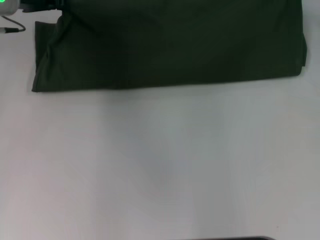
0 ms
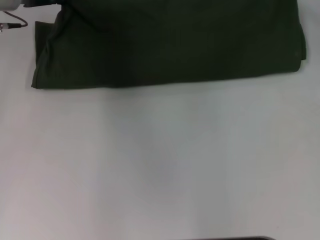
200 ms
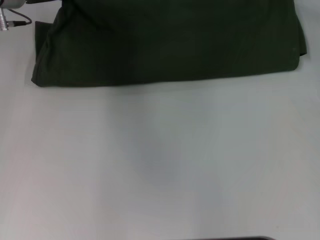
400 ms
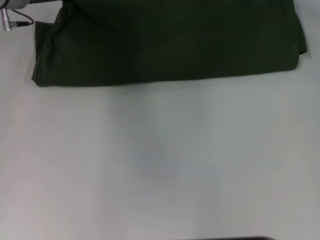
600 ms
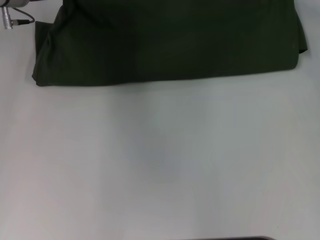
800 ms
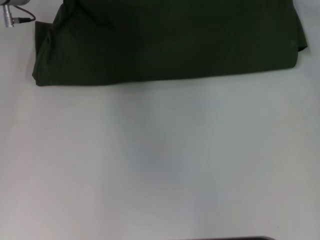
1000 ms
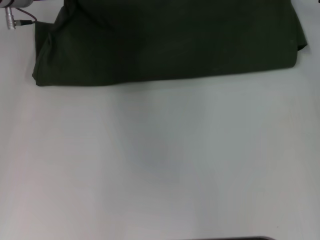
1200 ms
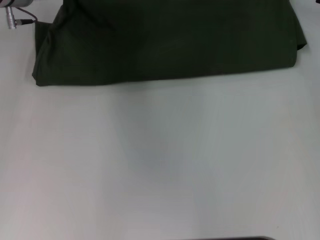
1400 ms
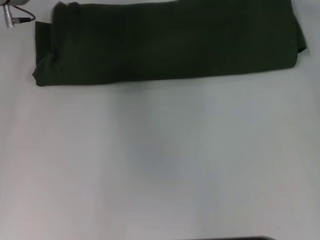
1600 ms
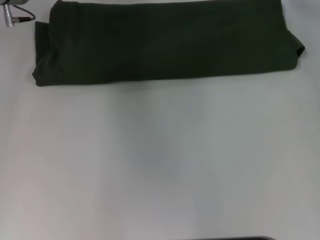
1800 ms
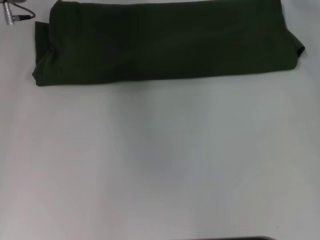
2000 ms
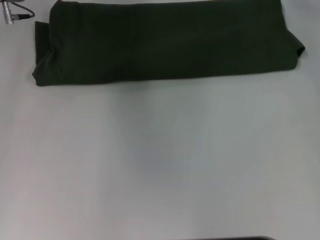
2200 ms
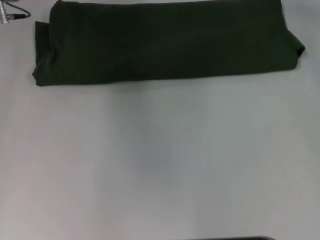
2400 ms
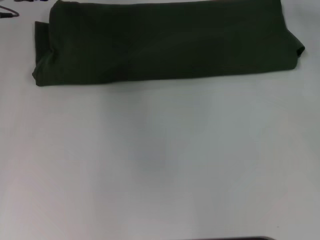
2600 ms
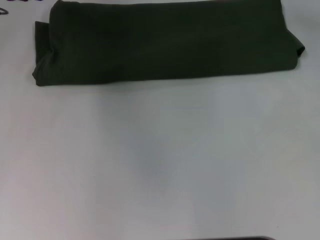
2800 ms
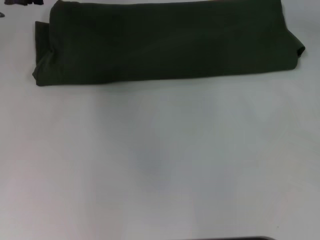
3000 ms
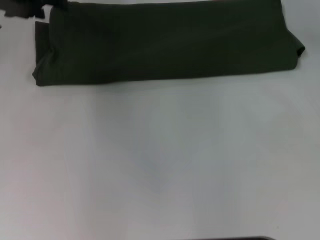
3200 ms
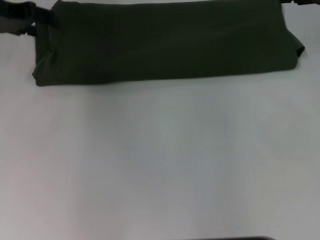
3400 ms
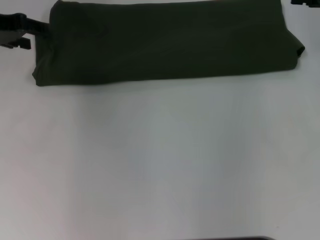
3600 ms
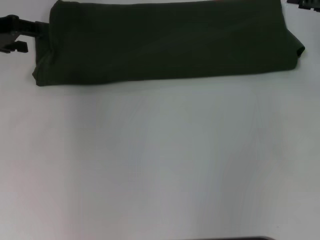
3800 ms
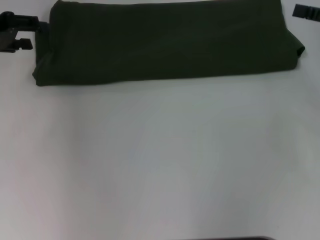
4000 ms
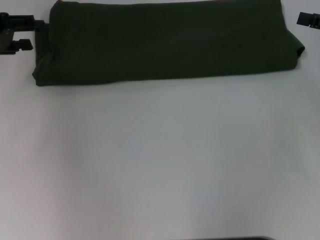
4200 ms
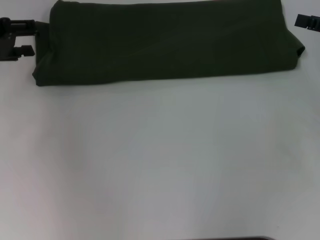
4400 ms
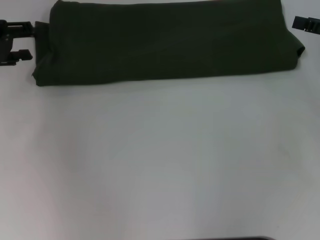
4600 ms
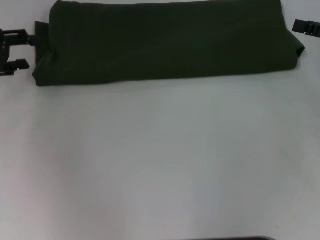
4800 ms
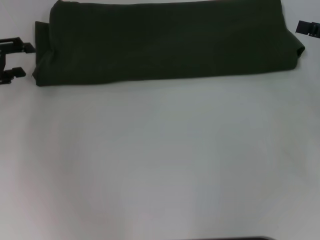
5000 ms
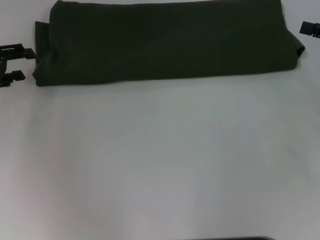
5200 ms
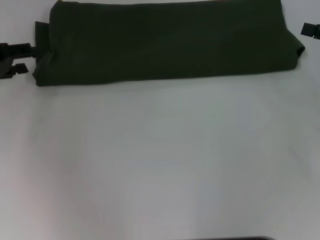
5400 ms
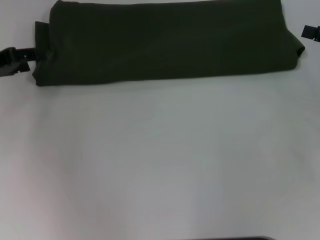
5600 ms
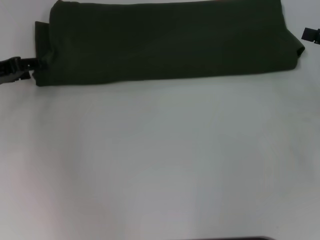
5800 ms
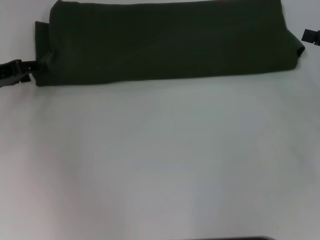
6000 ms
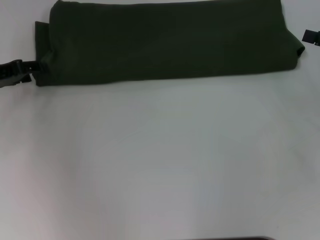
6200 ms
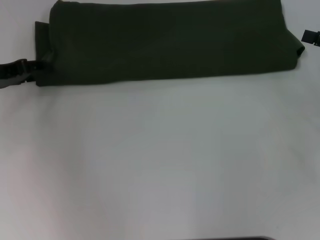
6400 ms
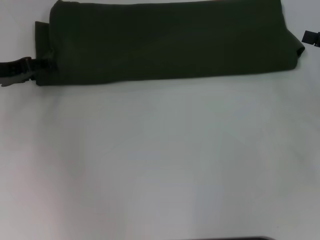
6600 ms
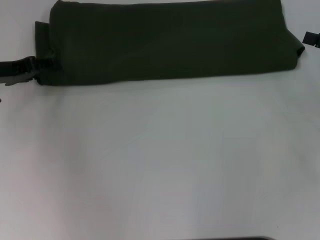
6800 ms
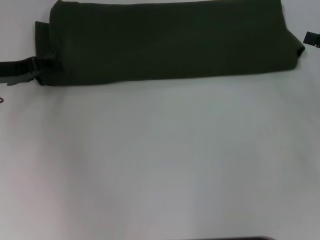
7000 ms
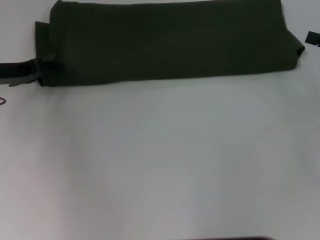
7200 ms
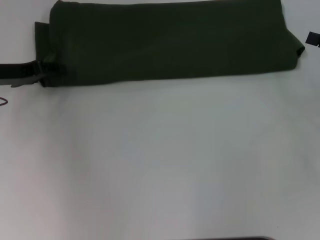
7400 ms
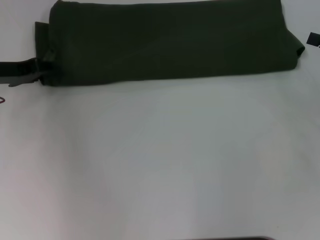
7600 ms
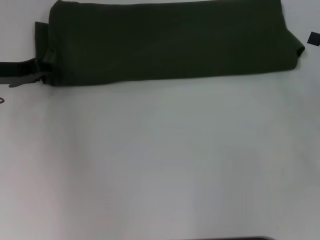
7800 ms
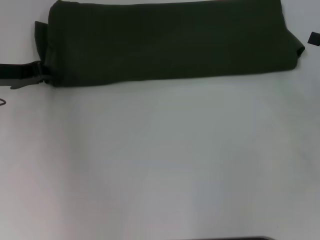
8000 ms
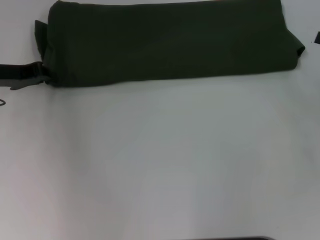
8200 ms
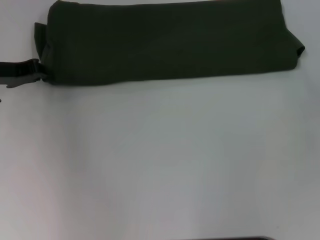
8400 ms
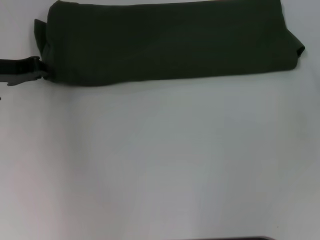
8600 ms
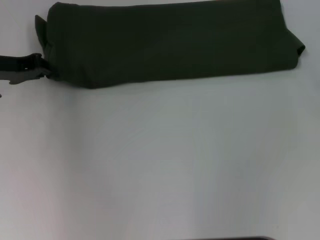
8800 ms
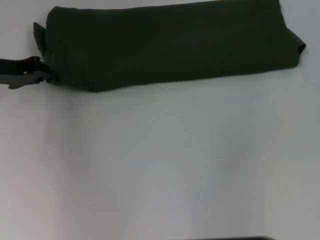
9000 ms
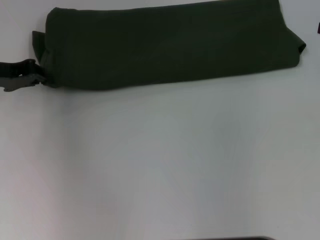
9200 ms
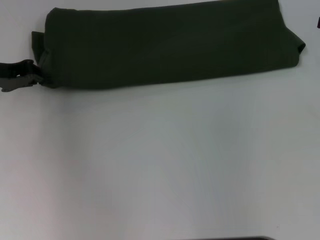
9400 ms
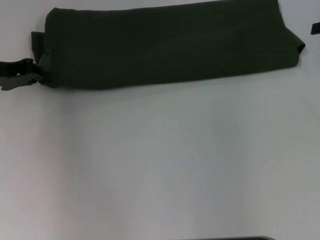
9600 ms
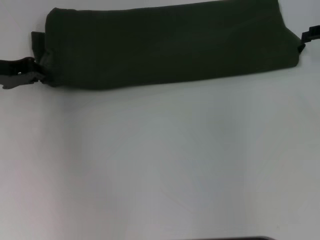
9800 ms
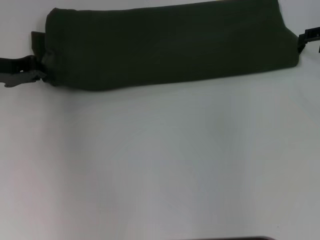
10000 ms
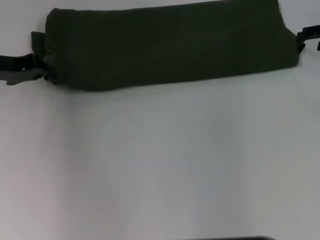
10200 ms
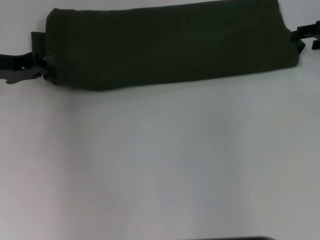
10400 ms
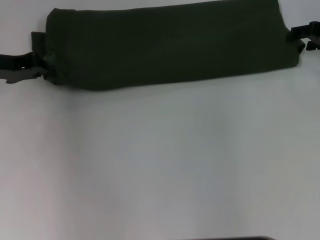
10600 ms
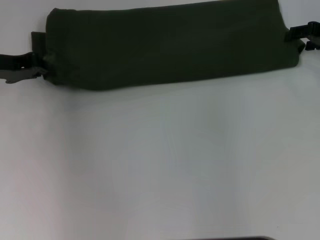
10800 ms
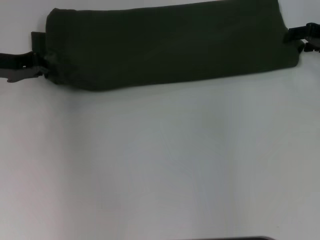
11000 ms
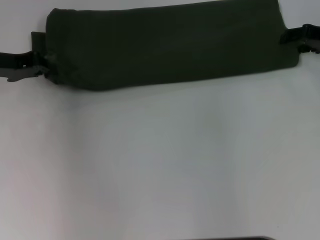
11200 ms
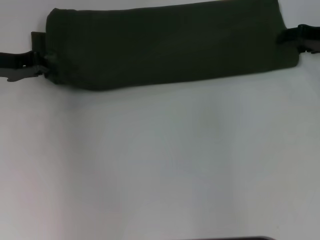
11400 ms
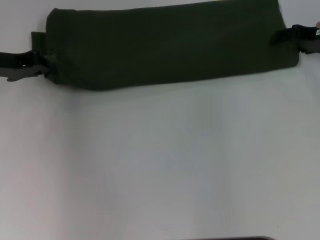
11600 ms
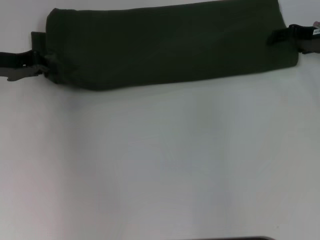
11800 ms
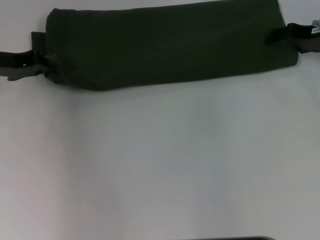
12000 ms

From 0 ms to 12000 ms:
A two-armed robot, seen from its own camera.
From 0 ms to 1600 ms: The right gripper shifts by roughly 5 cm.
From 1600 ms to 3000 ms: The left gripper shifts by roughly 5 cm, and opens, while the right gripper ends up some 5 cm from where it was, and opens.
From 3000 ms to 4400 ms: The left gripper shifts about 10 cm backward and to the left.
From 4400 ms to 6000 ms: The left gripper is displaced downward by some 5 cm.
From 7600 ms to 9000 ms: The right gripper goes approximately 10 cm forward and upward. Meanwhile the left gripper closes.
From 9000 ms to 10400 ms: The right gripper is displaced to the left by approximately 5 cm.
From 10400 ms to 12000 ms: The grippers stay close to where they were, moving slightly.

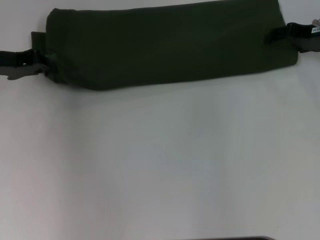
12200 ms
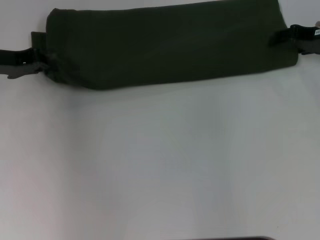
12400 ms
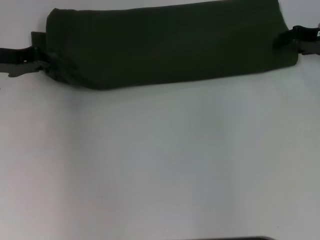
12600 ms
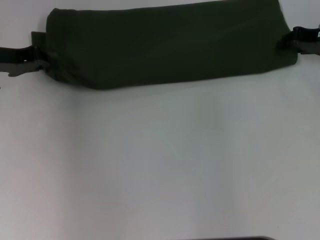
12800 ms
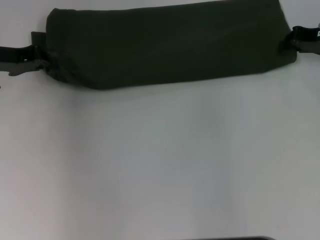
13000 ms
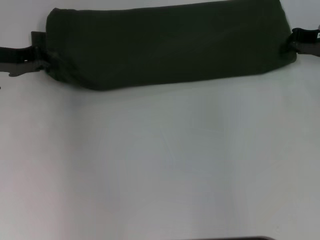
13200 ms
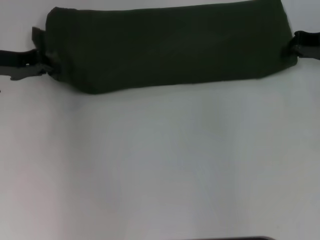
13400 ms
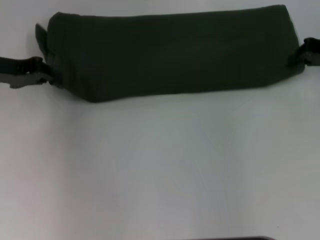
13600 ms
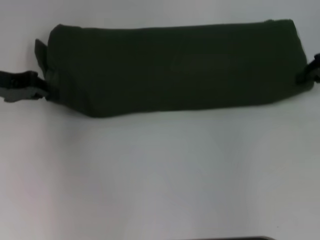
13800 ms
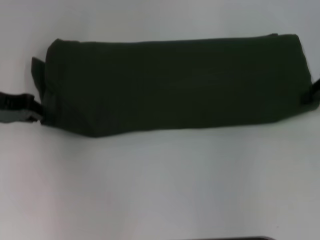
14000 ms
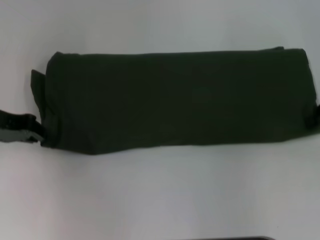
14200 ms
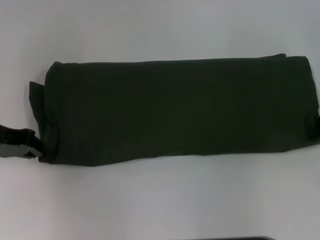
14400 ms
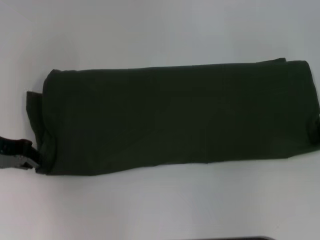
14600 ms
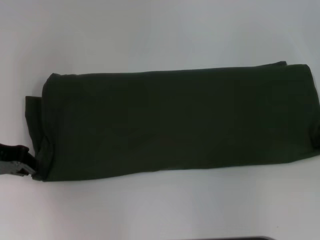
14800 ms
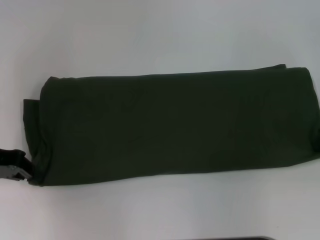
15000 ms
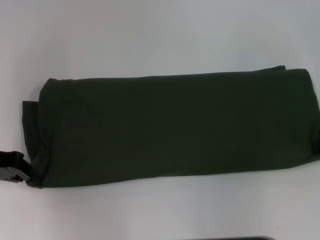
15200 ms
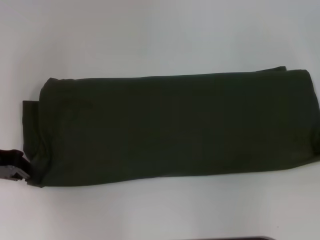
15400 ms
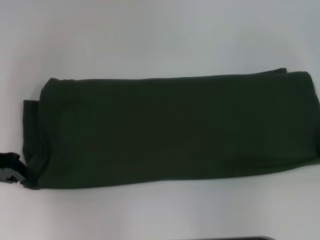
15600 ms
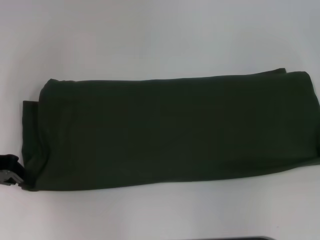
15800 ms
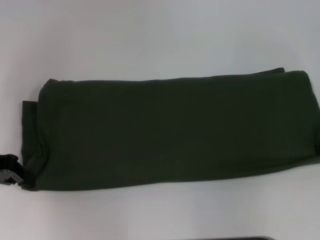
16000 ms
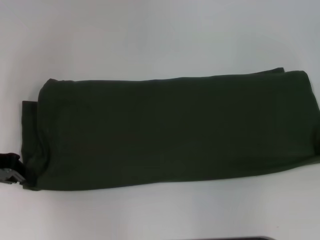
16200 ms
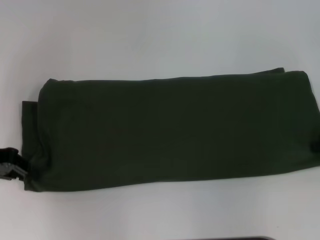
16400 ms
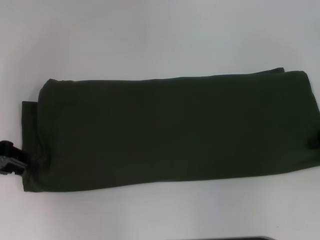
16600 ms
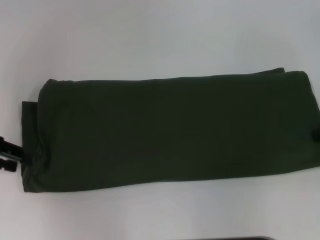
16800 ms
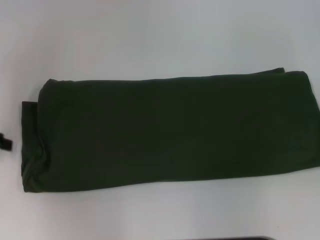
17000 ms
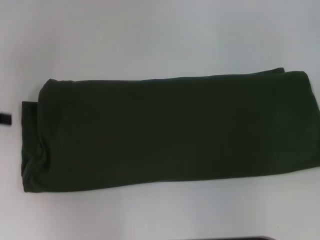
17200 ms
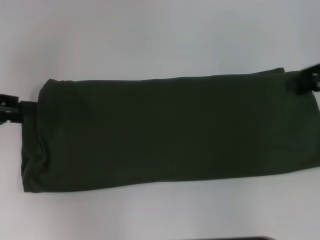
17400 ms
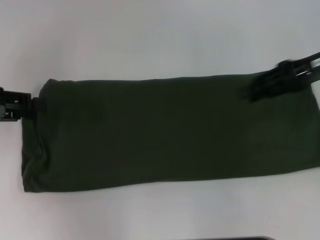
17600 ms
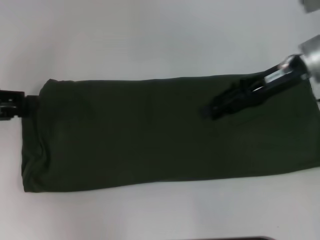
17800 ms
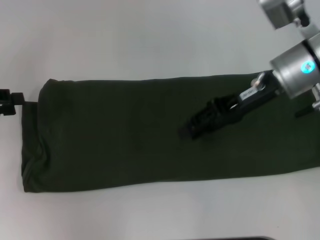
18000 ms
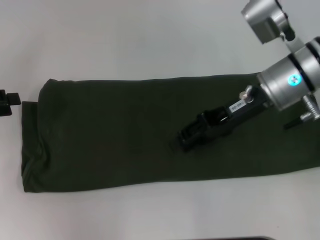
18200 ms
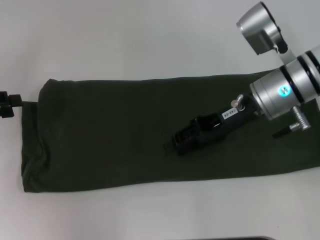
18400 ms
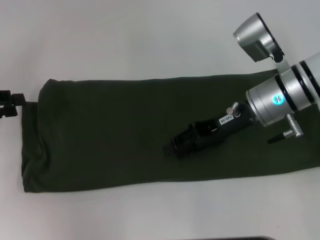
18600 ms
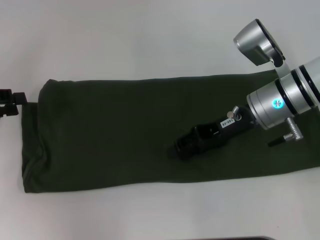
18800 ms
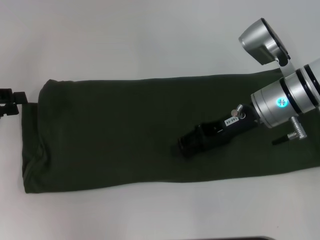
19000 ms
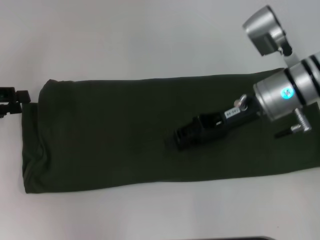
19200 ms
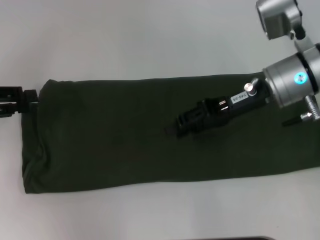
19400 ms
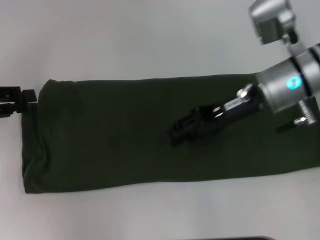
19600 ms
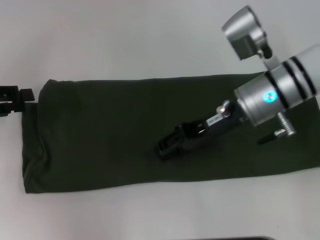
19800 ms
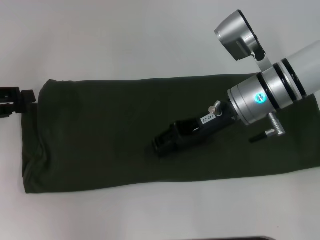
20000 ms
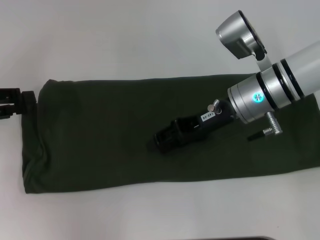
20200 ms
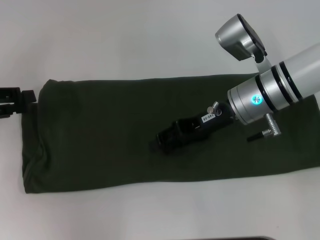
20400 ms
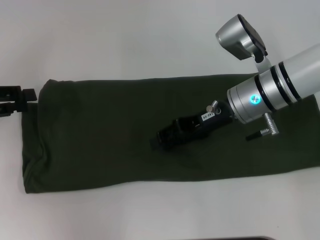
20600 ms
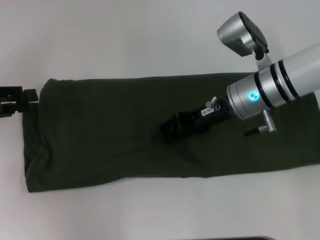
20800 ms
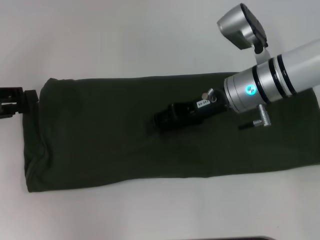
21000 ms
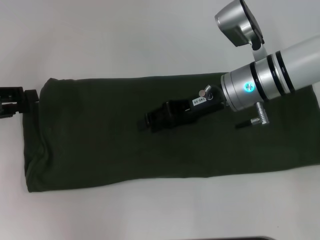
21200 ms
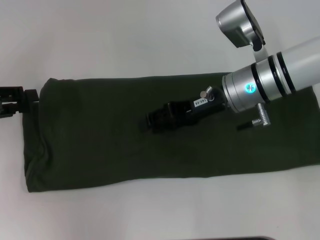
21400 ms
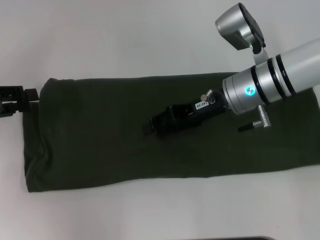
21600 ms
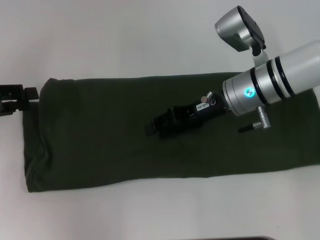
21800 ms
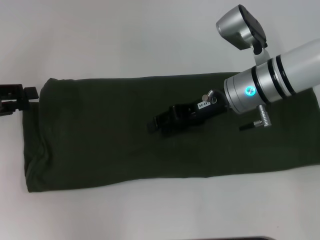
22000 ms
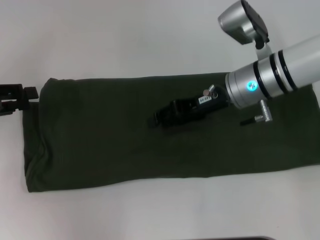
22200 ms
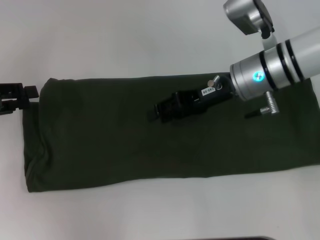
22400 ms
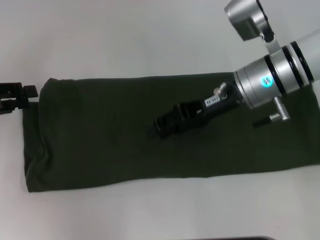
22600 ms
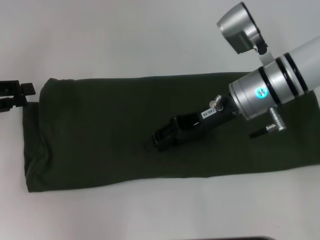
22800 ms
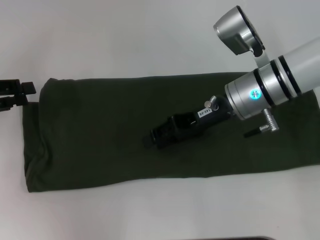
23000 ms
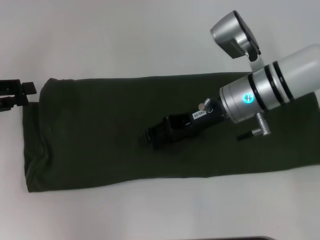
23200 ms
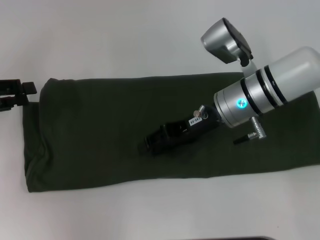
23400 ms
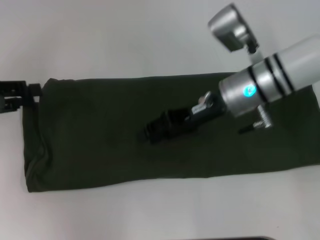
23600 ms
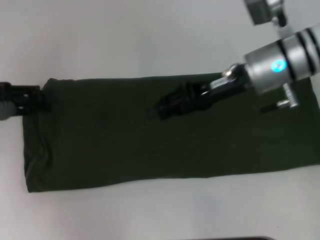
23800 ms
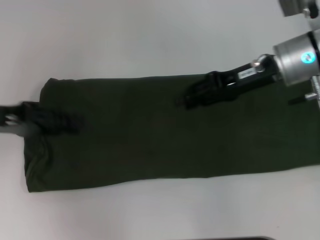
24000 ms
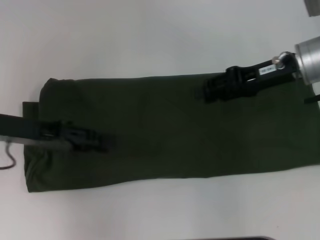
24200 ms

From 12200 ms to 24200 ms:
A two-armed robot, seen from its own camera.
From 12200 ms to 13800 ms: The right gripper is displaced backward by roughly 5 cm, and closes.
From 13800 ms to 15200 ms: Both grippers travel together backward, roughly 5 cm.
From 15200 ms to 16600 ms: The grippers make only small movements.
From 16600 ms to 18200 ms: The right gripper goes some 20 cm to the left; the left gripper opens up.
From 18200 ms to 22600 ms: The grippers move only a little.
From 22600 ms to 24200 ms: The grippers both shift to the right by about 10 cm.
